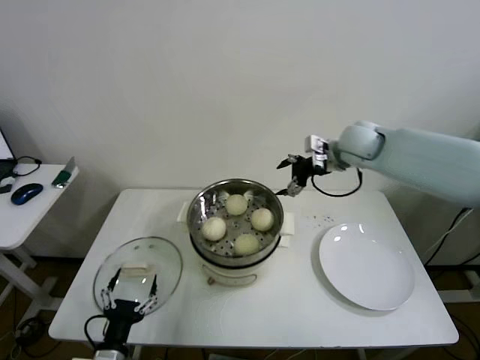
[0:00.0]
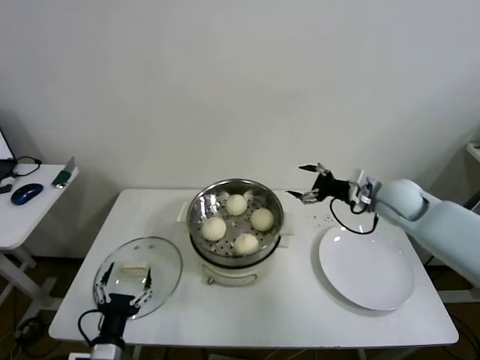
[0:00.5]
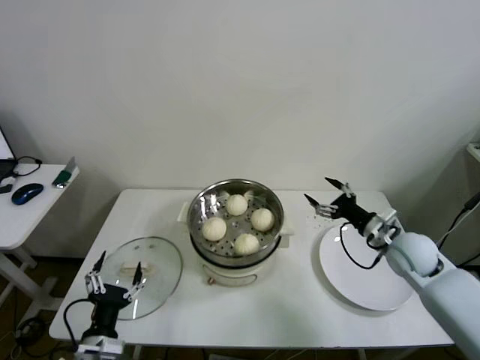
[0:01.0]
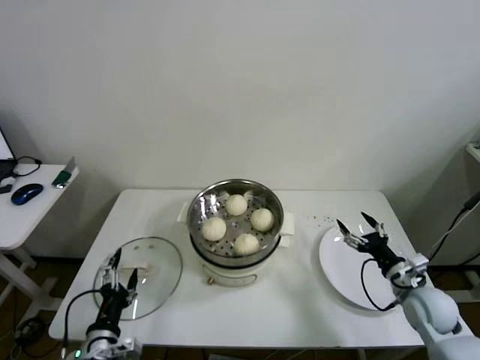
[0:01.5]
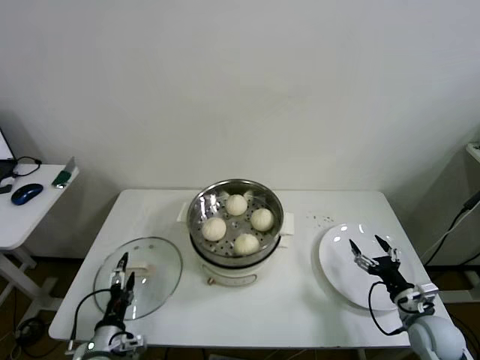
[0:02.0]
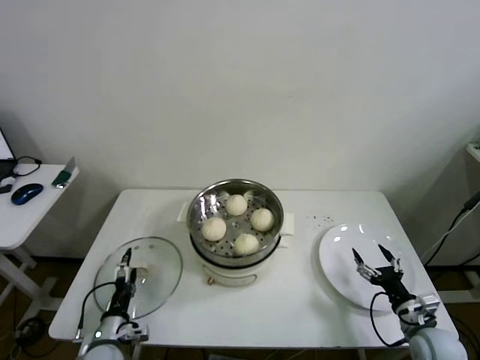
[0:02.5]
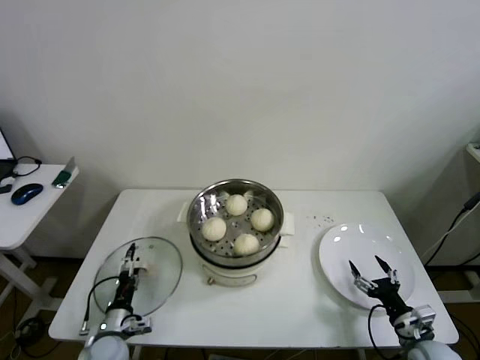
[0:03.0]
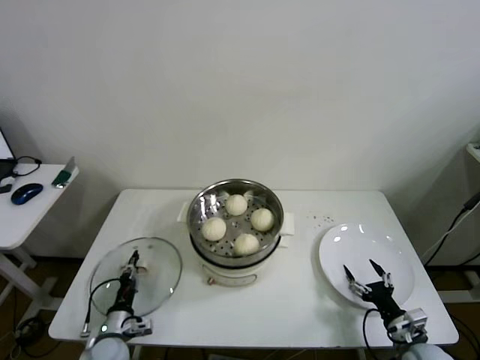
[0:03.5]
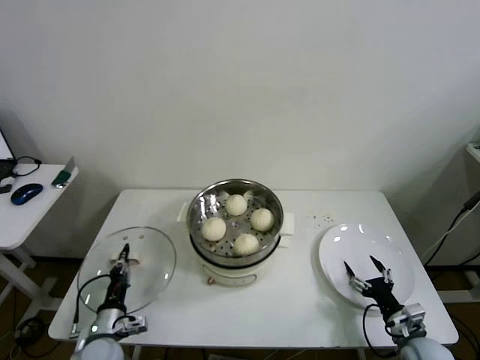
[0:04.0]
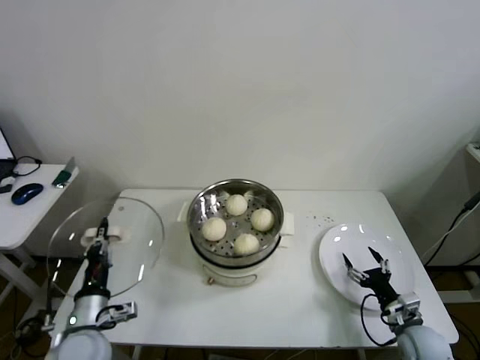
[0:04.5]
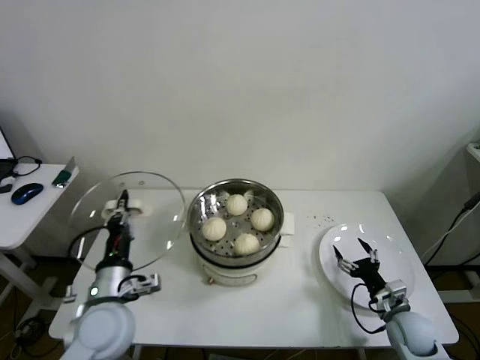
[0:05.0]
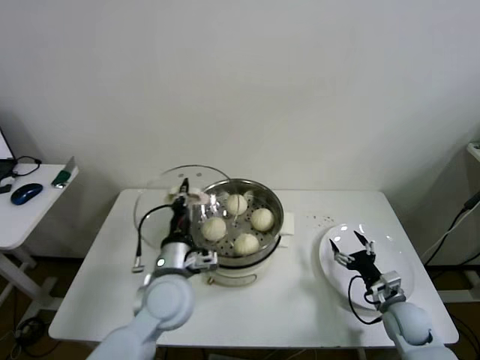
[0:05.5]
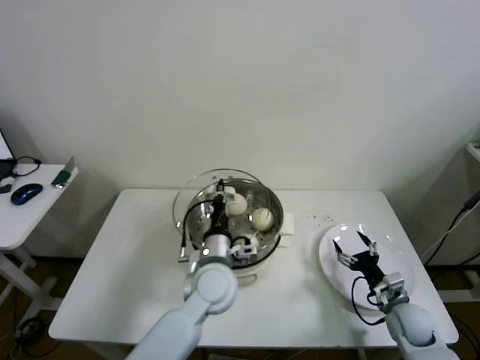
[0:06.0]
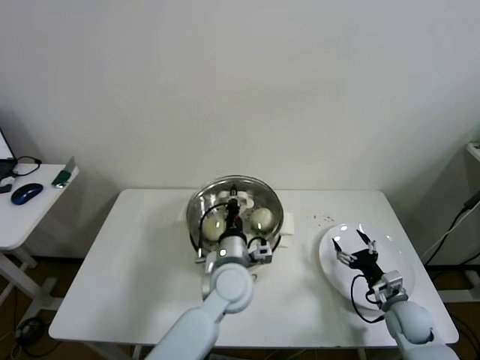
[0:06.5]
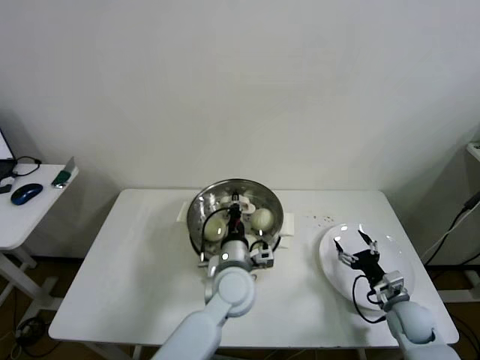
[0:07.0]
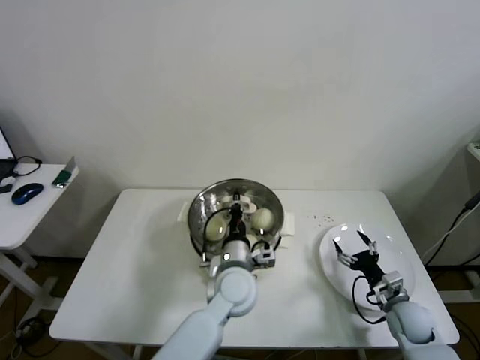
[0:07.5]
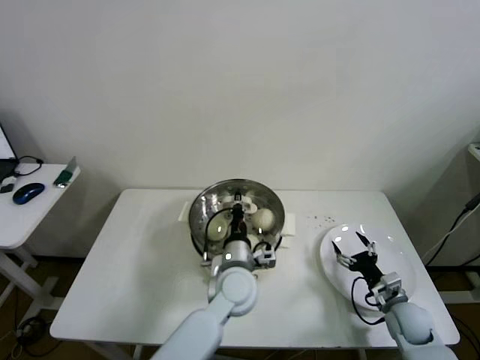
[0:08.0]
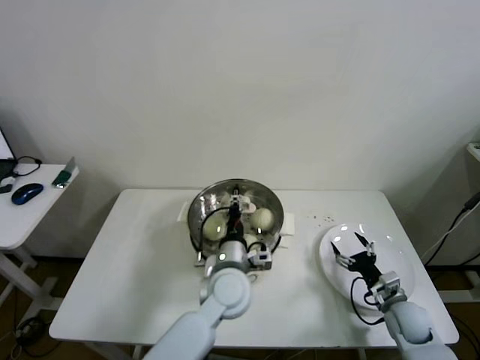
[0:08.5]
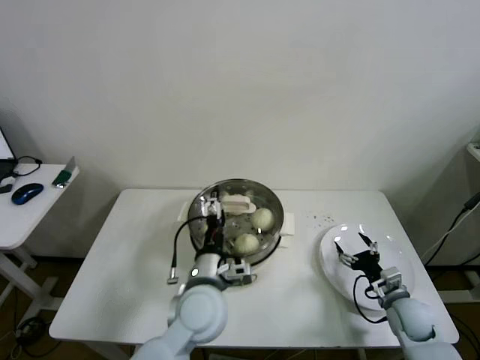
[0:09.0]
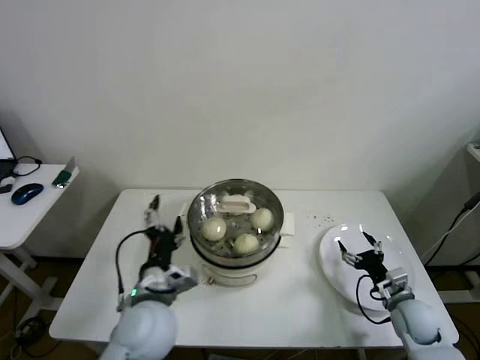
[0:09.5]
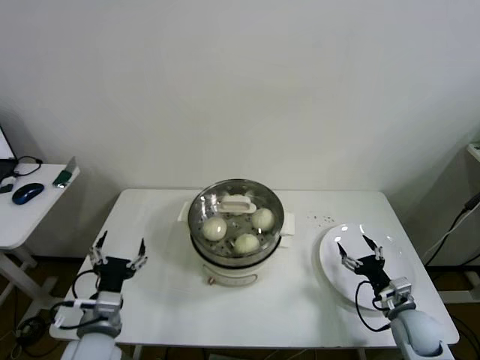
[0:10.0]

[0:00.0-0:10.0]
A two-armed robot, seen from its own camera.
Step, 0:00.0 to 0:03.5: Grasp the pot lid with left gripper.
Step, 0:04.0 to 0:08.0: Place the pot lid on the steamer with left gripper.
0:00.0 to 0:02.0: The right gripper travels downward, backward and to the right by approximately 50 cm, while the left gripper heads forward, covering some 5 cm.
0:02.0 to 0:04.0: The right gripper moves roughly 5 cm. The left gripper closes up.
0:04.0 to 0:06.0: The left gripper heads to the right and upward, covering roughly 30 cm. The right gripper moves forward, approximately 5 cm.
0:06.0 to 0:08.0: The left gripper ends up approximately 5 cm from where it was.
0:08.0 to 0:10.0: The left gripper is displaced to the left and backward by some 30 cm, and opens its fingers.

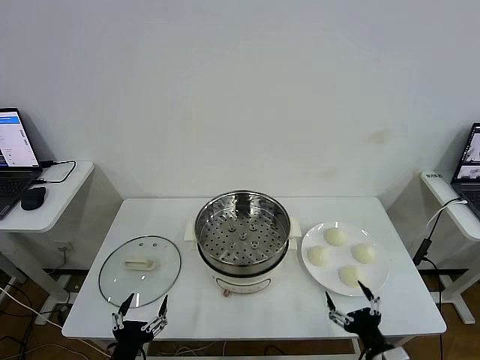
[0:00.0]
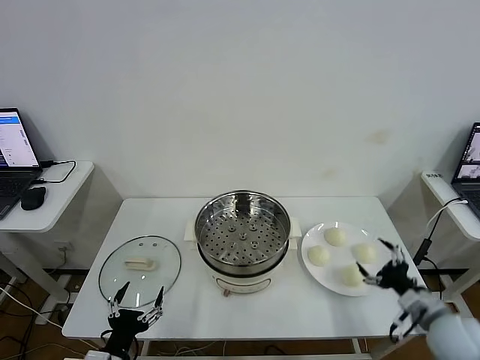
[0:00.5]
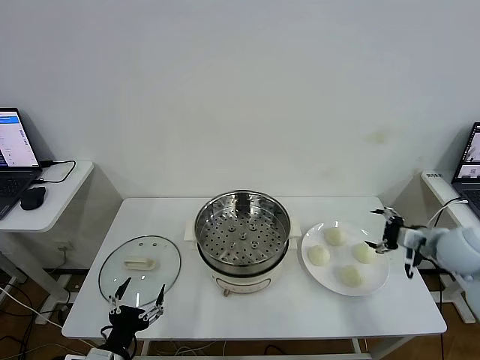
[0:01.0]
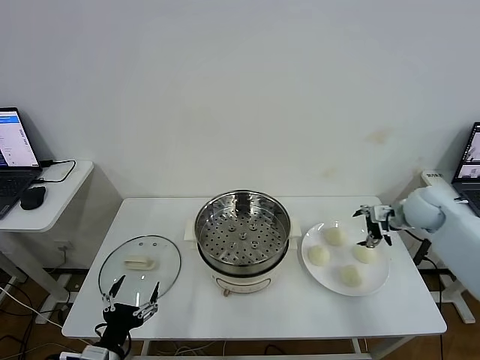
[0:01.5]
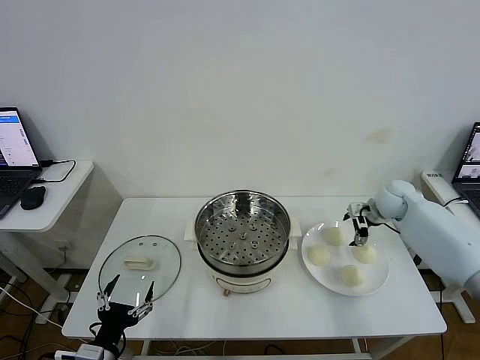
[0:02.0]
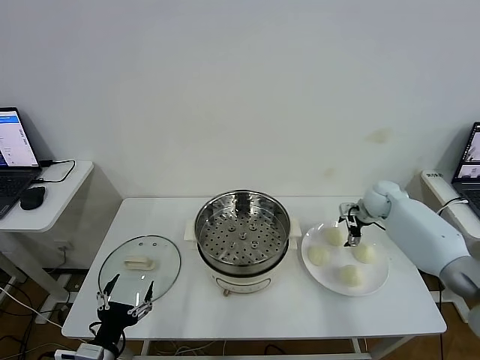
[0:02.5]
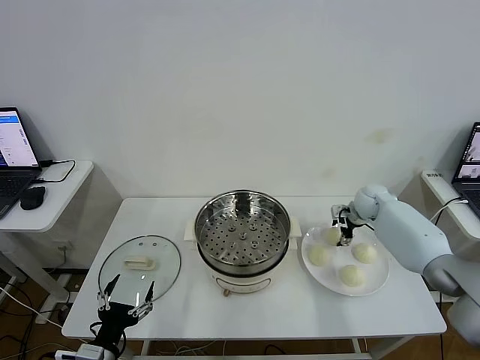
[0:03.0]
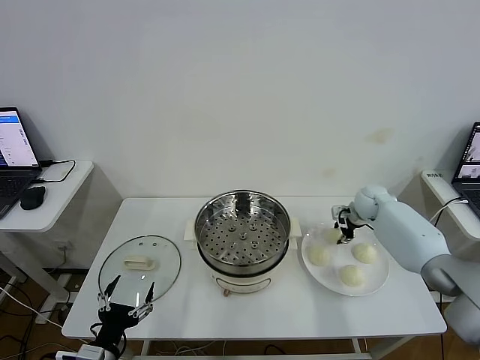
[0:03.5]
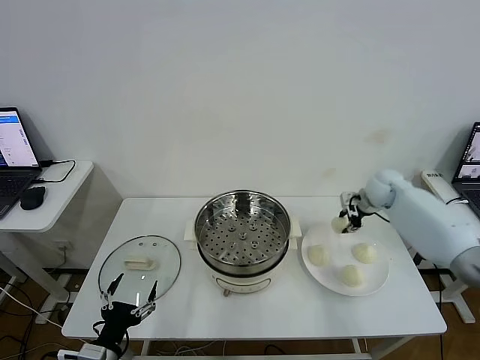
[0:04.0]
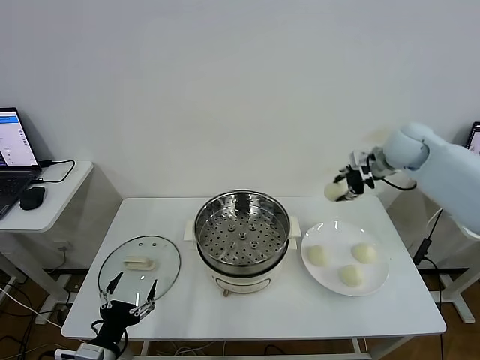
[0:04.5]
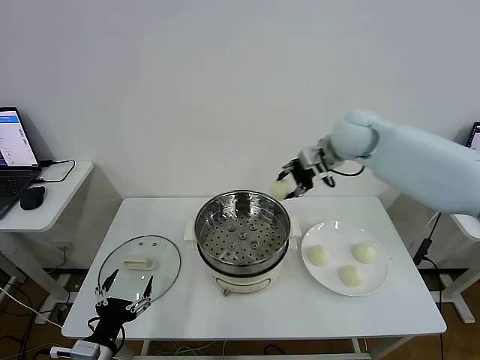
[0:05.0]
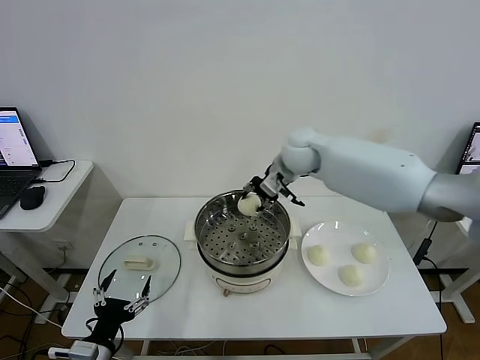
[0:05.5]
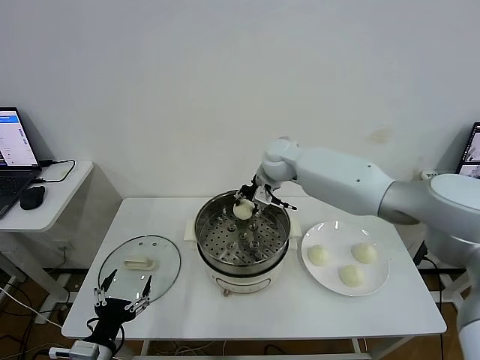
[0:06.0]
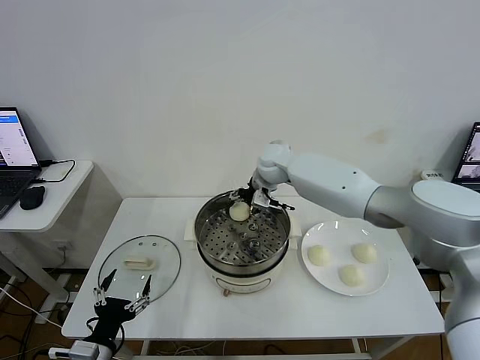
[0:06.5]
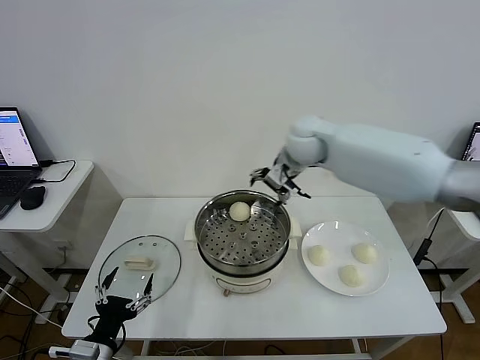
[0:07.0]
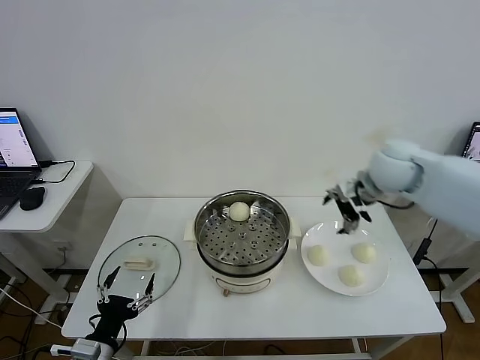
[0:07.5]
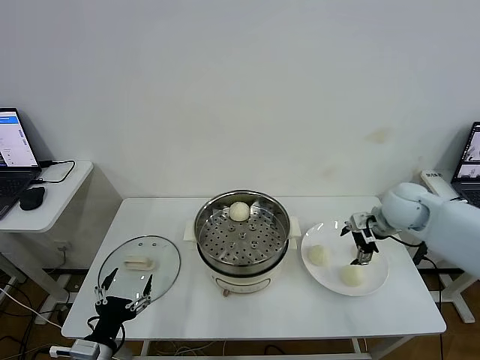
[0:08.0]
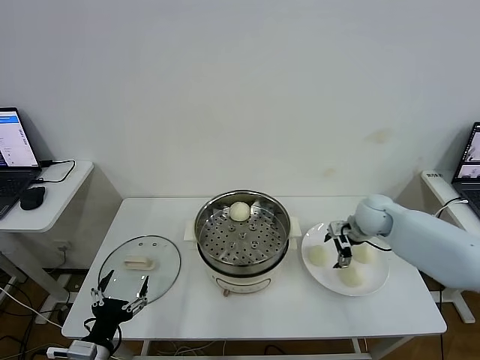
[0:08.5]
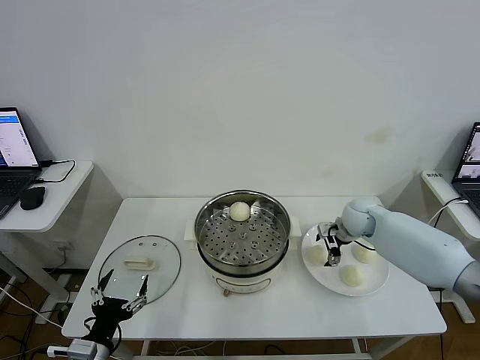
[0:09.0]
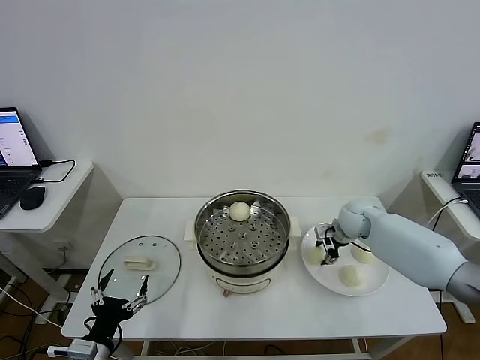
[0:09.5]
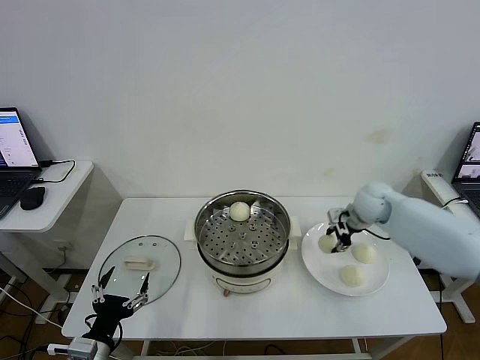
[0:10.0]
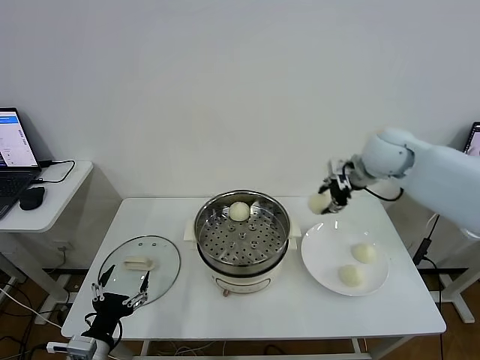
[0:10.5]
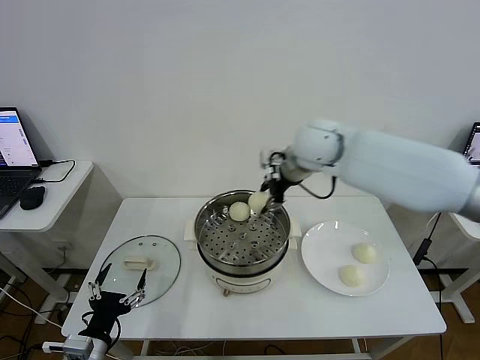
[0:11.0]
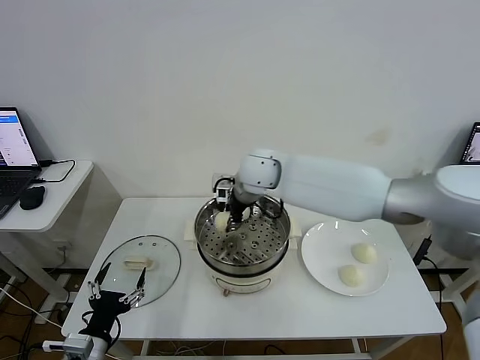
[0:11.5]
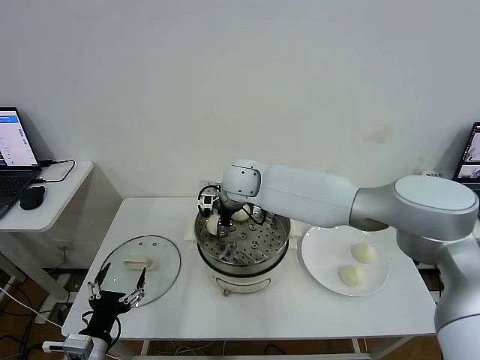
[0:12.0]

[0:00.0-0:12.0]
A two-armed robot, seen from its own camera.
Step, 0:00.0 to 0:03.5: Grasp the baozi in the plate with right gripper.
Step, 0:04.0 to 0:06.5: Place the baozi on the steamer with right gripper.
Step, 0:07.0 to 0:09.5: Grasp the baozi in the plate with right gripper.
0:02.0 to 0:04.0: The right gripper shifts roughly 5 cm upward, and closes its fingers.
0:04.0 to 0:06.0: The right gripper heads to the left, covering some 30 cm.
0:06.0 to 0:08.0: The right gripper travels to the right and backward by about 30 cm, and opens up.
0:08.0 to 0:10.0: The right gripper travels downward and back again, some 10 cm each way, and closes up.
0:10.0 to 0:12.0: The right gripper heads to the left, covering approximately 35 cm.

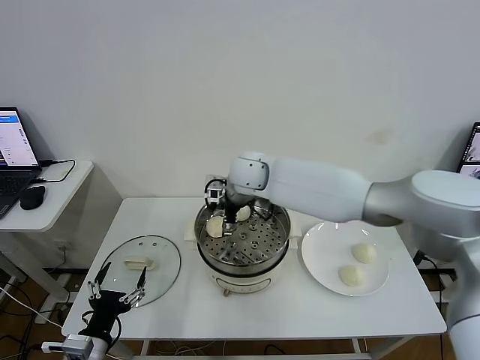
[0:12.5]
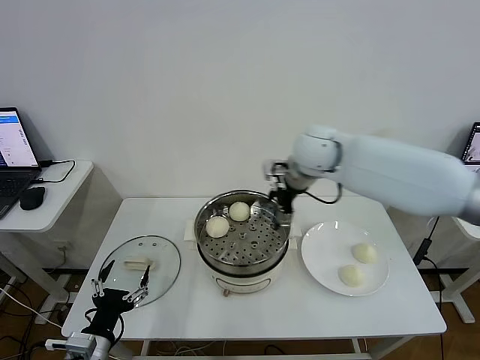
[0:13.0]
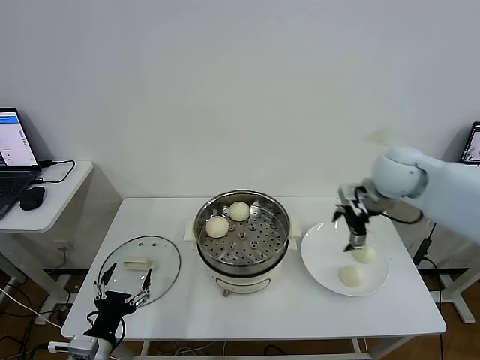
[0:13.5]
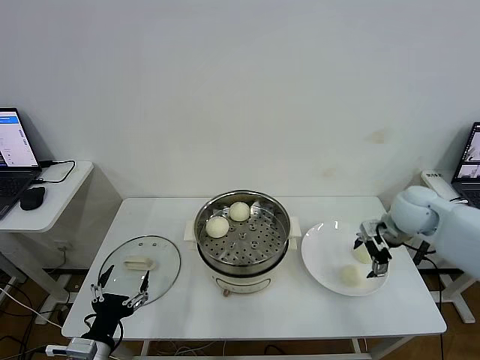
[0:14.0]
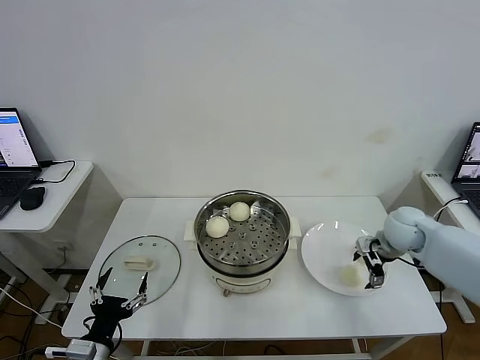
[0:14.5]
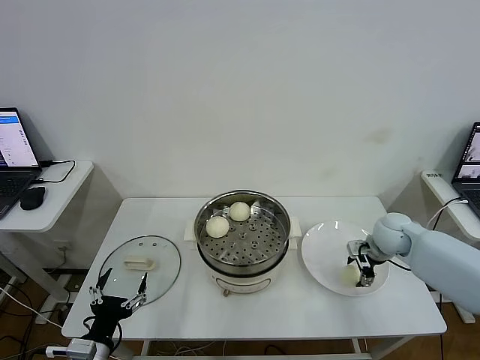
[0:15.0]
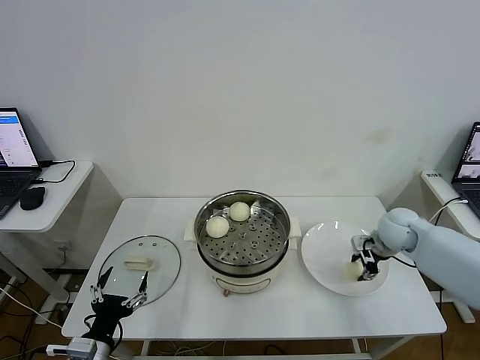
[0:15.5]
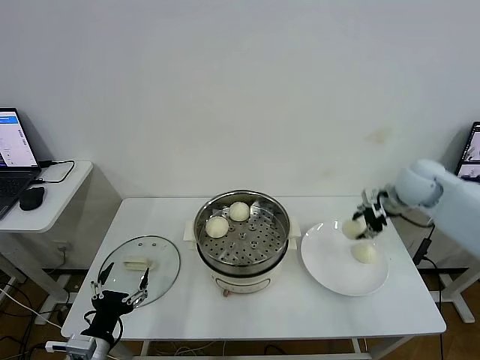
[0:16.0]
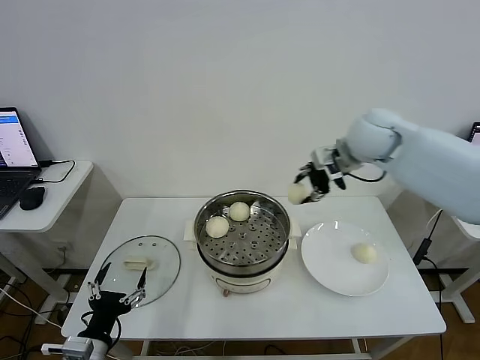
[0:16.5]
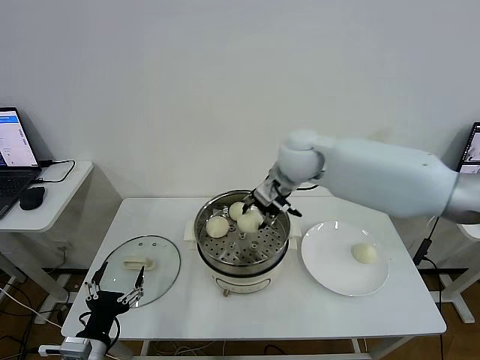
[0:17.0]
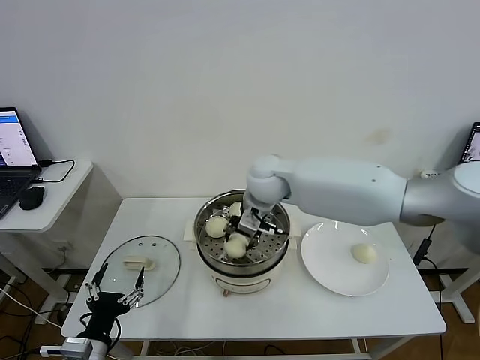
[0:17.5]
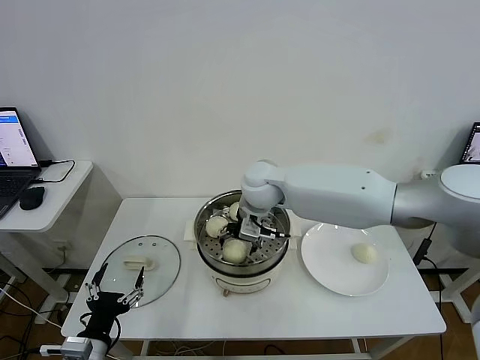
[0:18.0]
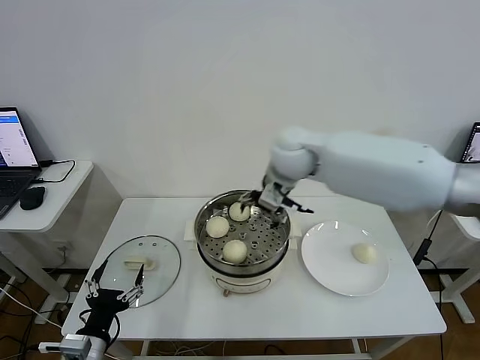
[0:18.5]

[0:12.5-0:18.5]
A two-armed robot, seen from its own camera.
Step, 0:13.0 to 0:15.0: Grasp the baozi in the plate with right gripper.
Step, 0:15.5 to 0:18.0: Place the baozi on the steamer with right gripper.
0:12.5 to 0:14.5: The right gripper shifts some 35 cm to the right.
0:14.5 to 0:16.5: The right gripper moves upward and to the left, about 25 cm, and closes its fingers.
0:16.5 to 0:18.5: The right gripper is displaced to the left by about 10 cm, and opens.
